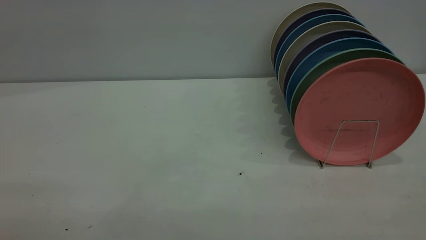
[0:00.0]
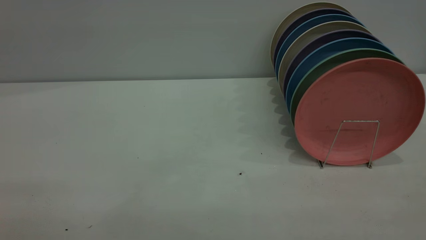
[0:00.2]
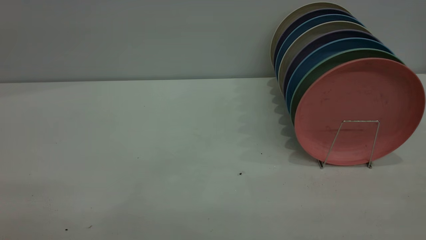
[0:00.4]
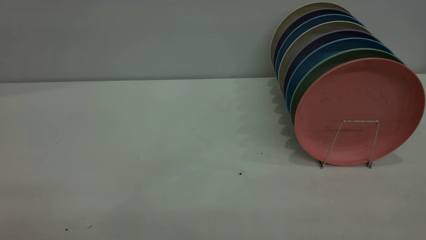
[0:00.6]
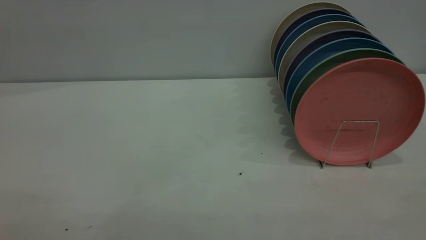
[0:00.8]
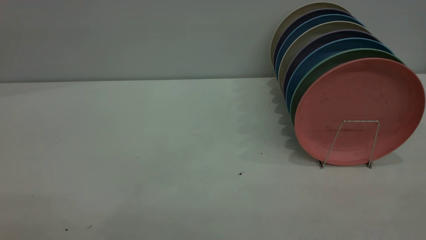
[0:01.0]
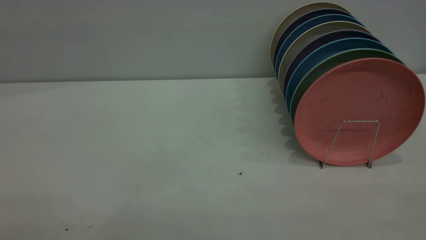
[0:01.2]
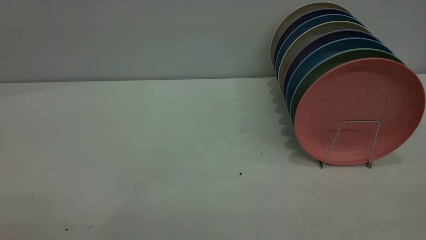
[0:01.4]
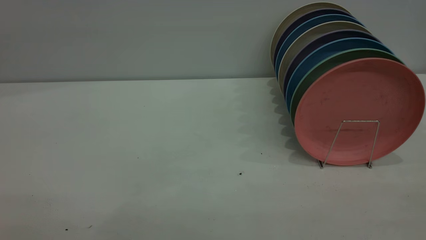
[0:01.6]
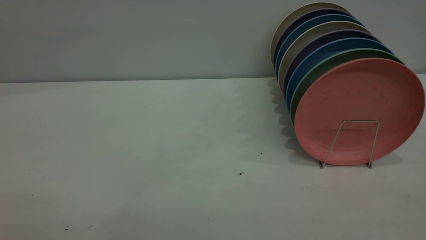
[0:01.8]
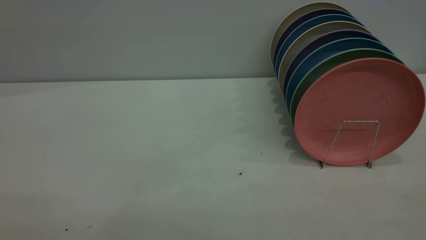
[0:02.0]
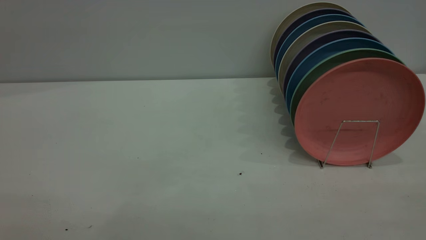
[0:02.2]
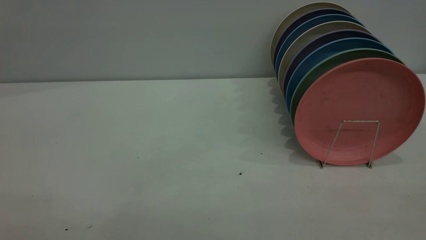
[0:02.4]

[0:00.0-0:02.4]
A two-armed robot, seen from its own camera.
Task of the whole recording: the left gripper grasp the pink plate, the left gripper pass the pink plate to the right gripper, and the right gripper place the pink plate on the plate rack.
1.2 to 2.4 s: Both grippers stay put.

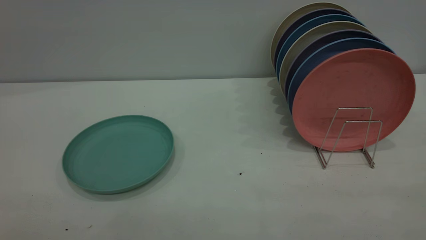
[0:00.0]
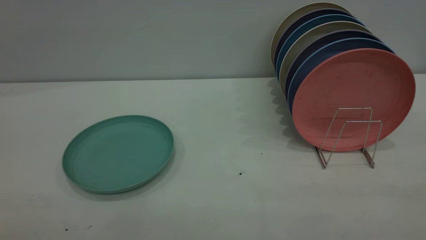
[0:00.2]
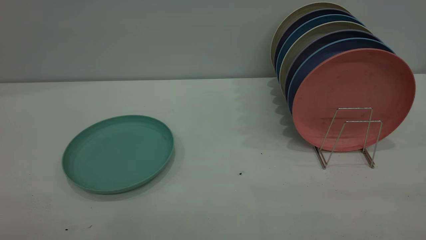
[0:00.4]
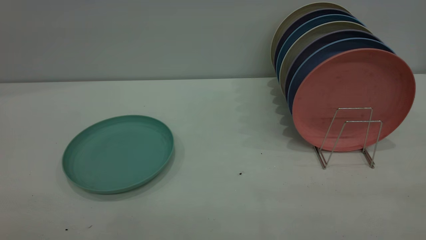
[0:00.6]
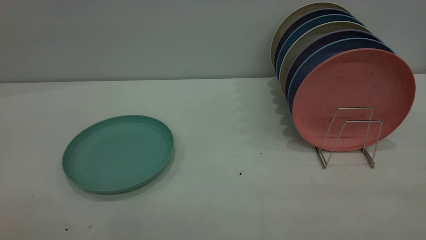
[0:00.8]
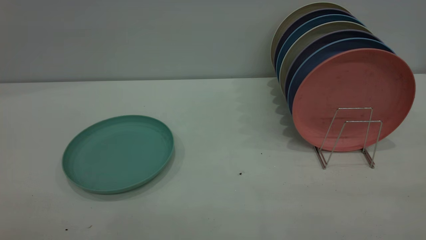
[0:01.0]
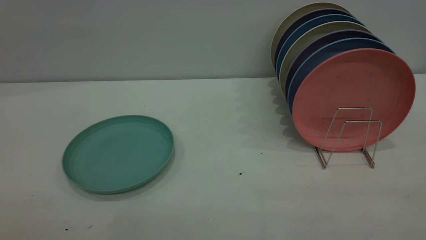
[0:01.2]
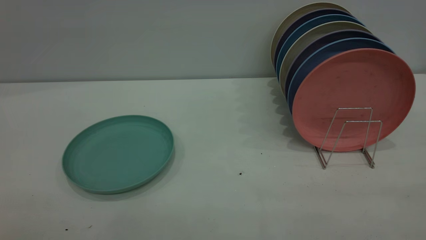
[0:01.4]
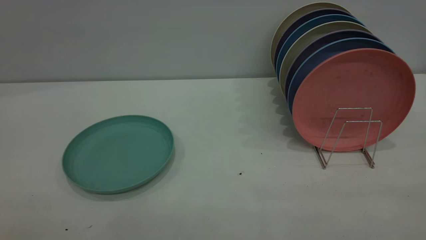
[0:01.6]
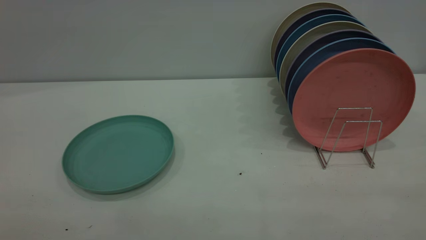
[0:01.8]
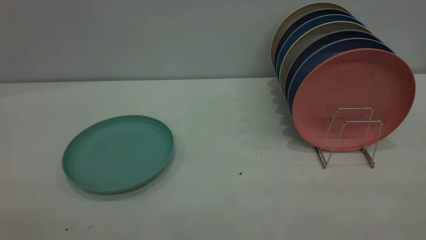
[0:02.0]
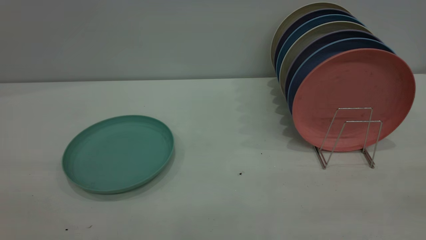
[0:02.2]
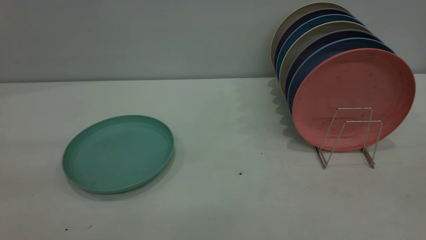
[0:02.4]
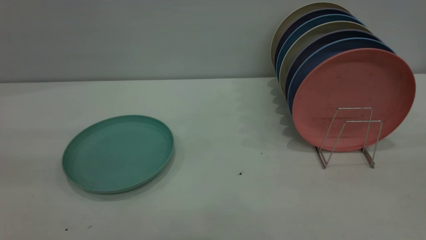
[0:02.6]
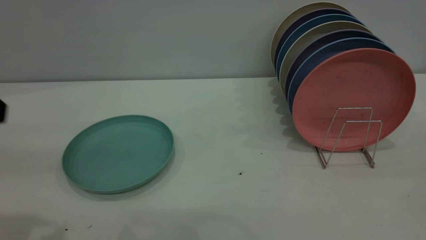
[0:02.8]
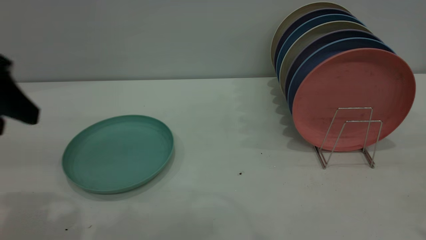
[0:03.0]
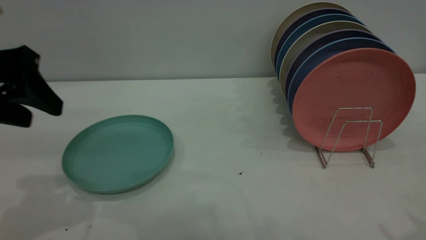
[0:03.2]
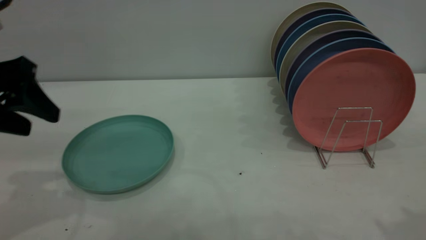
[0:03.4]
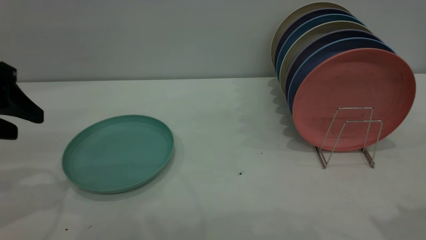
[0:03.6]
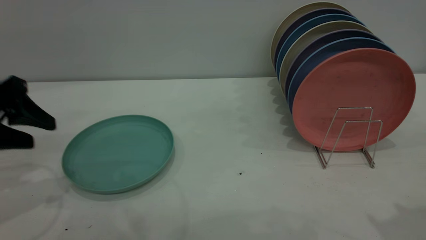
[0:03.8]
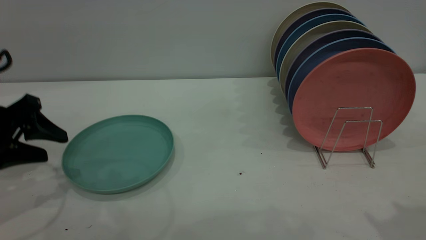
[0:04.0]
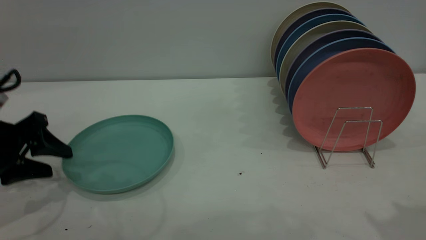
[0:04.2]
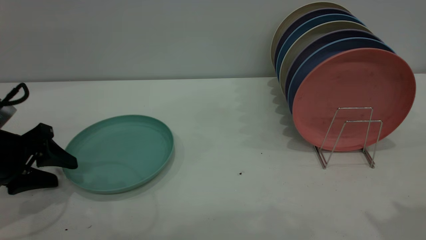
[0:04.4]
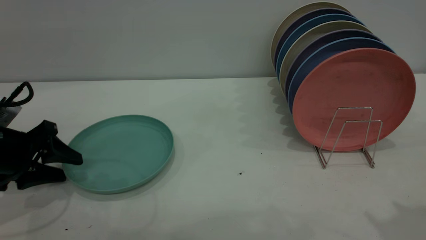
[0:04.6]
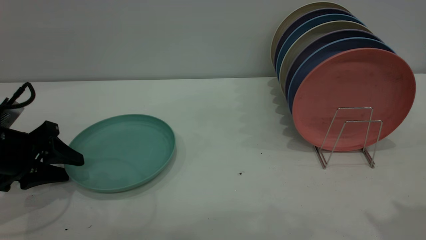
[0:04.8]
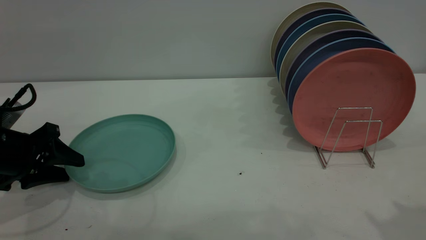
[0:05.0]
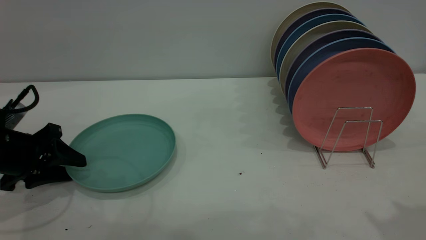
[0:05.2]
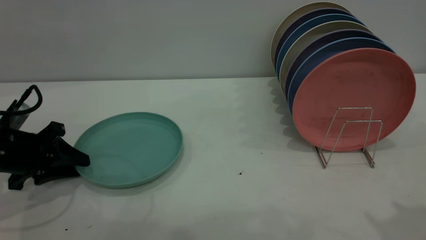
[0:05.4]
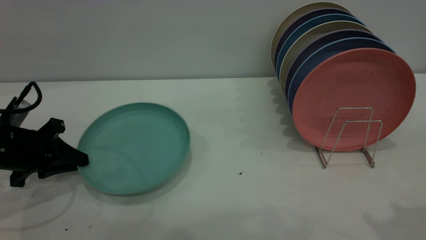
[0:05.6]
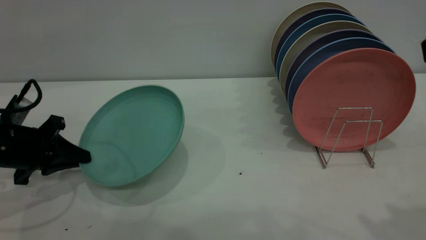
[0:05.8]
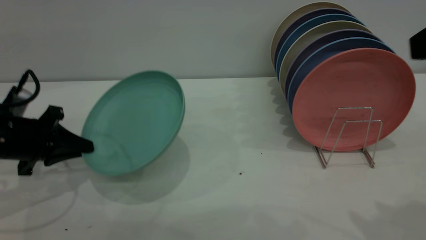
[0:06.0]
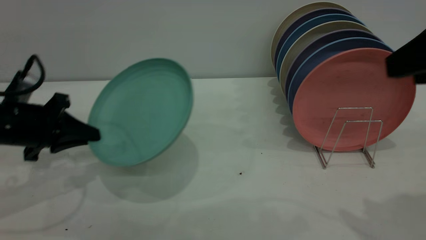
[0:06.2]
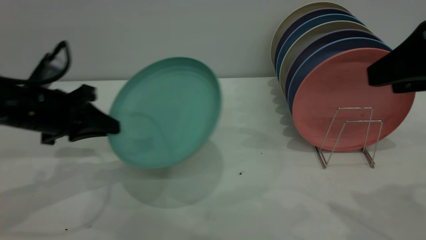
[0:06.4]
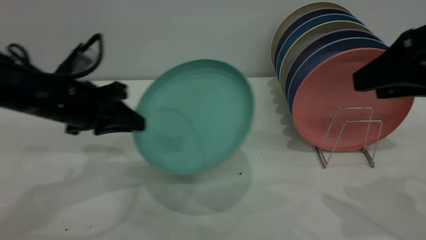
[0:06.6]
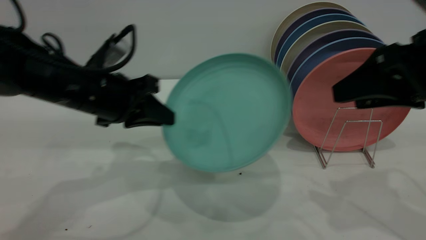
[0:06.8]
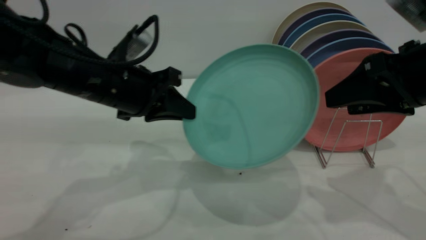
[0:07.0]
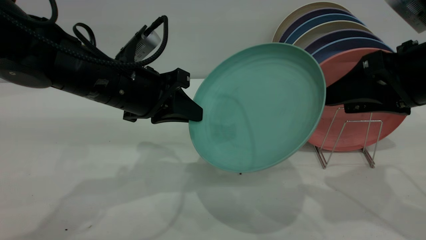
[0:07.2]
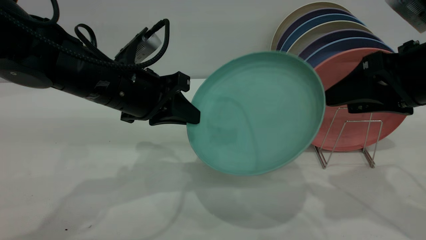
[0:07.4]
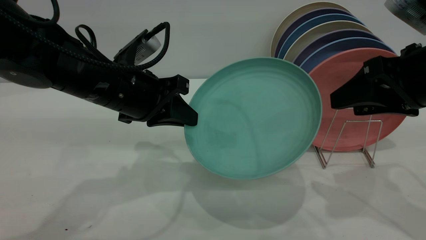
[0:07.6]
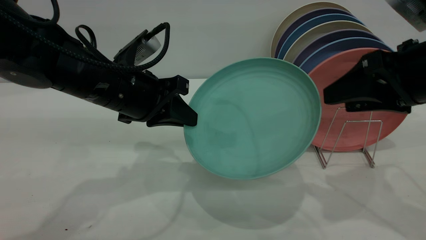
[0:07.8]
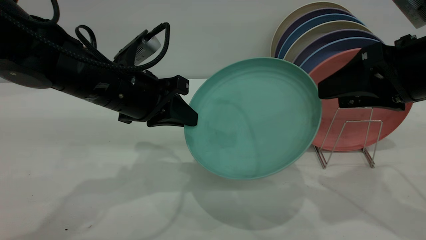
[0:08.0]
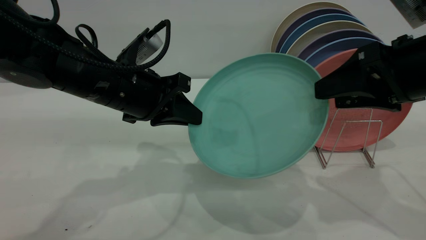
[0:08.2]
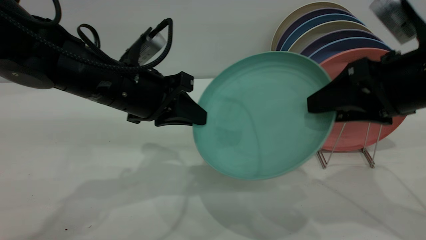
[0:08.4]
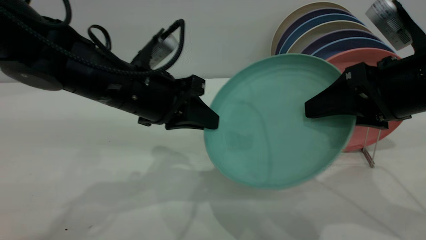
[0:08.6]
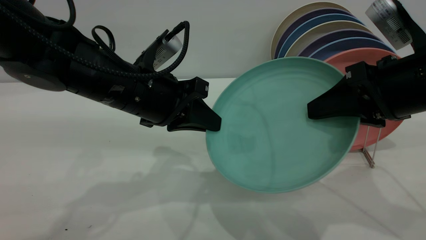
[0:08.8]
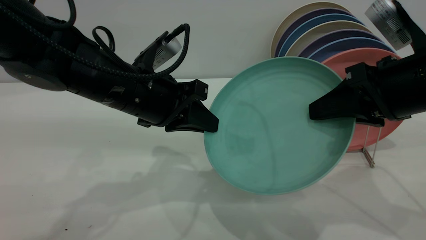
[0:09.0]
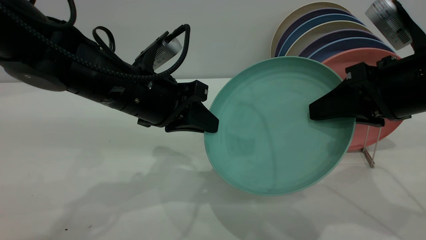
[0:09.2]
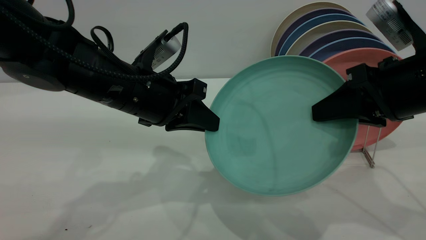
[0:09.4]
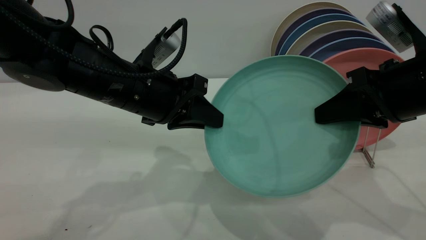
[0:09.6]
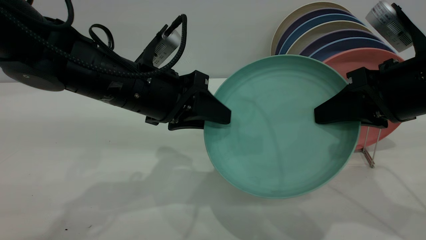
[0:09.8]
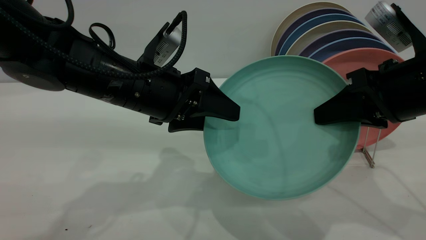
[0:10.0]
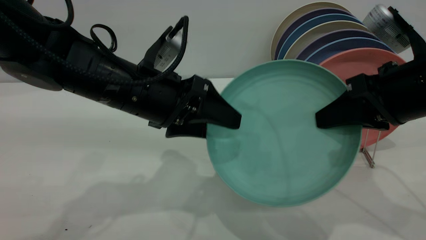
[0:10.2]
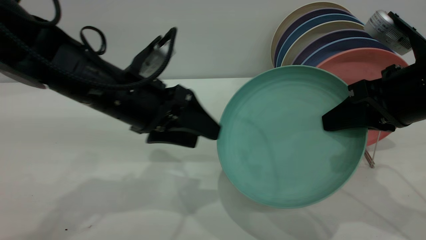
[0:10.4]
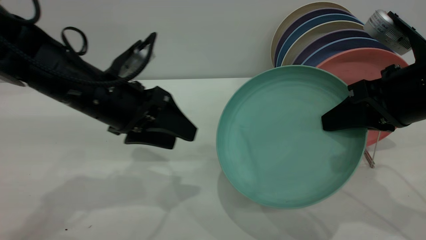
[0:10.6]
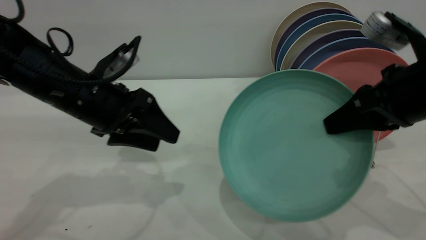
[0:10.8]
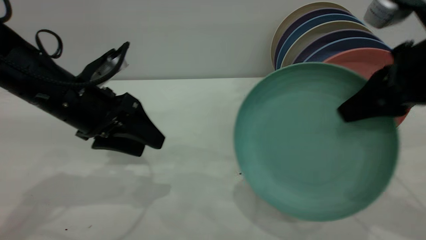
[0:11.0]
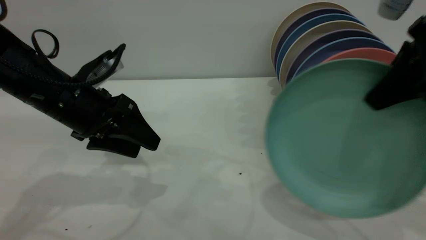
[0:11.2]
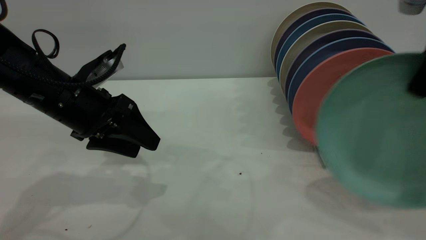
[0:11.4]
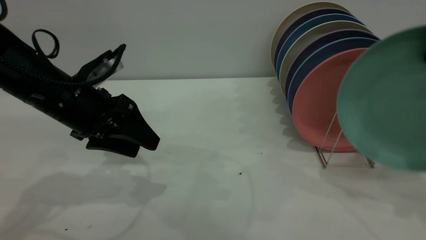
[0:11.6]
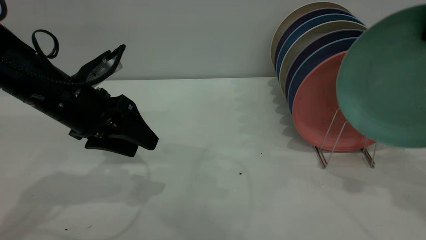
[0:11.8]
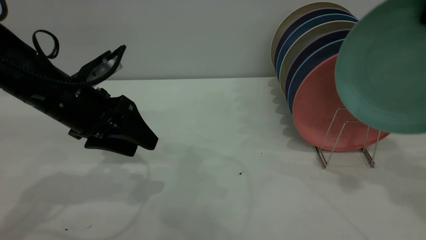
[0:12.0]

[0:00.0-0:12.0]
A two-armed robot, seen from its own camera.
Task of the whole recording: the left gripper grasp the green plate, the left gripper pass the green plate to the right gripper, and the right gripper place the green plate on the plate rack.
Step, 0.0 to 5.8 s: Pick up the plate with the left gripper.
Step, 6.2 to 10.4 s: Pass the plate from the left gripper to the right gripper.
0.0 to 1.6 s: Both grippers stay put.
1.6 to 3.0 s: The left gripper is displaced forward by some 25 cm.
3.0 to 4.4 s: The left gripper shifts roughly 15 cm downward.
4.4 to 6.0 s: The left gripper closes up.
6.0 to 7.6 s: The left gripper is displaced to the right by some 15 cm, while the right gripper travels downward and forward by roughly 10 cm.
7.6 to 9.0 s: The right gripper closes its fingers.
9.0 to 10.4 s: The left gripper opens its fingers.
10.4 to 12.0 s: The left gripper heads to the left, covering about 5 cm. The right gripper moves upward, some 15 cm.

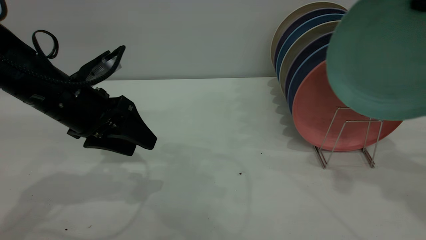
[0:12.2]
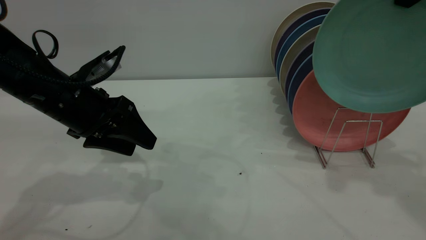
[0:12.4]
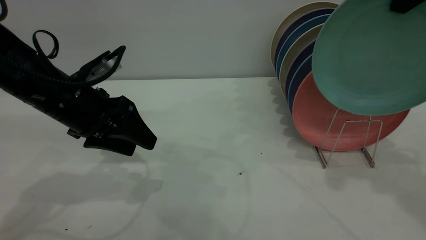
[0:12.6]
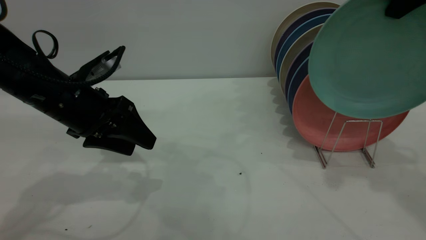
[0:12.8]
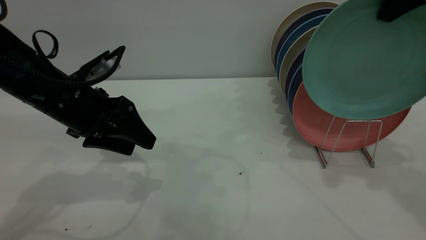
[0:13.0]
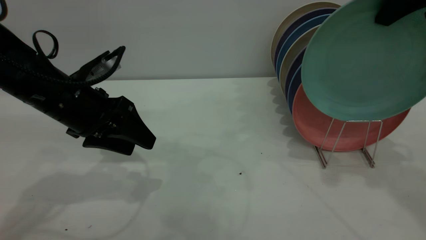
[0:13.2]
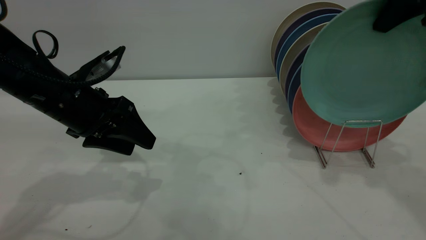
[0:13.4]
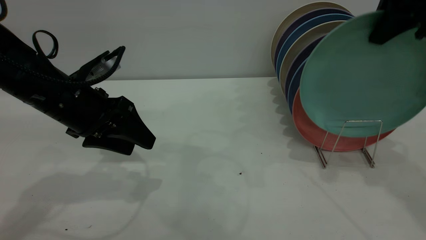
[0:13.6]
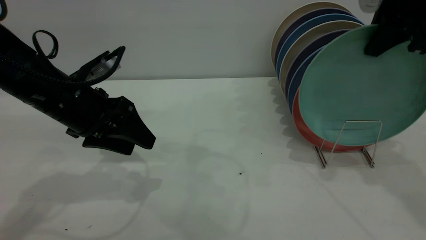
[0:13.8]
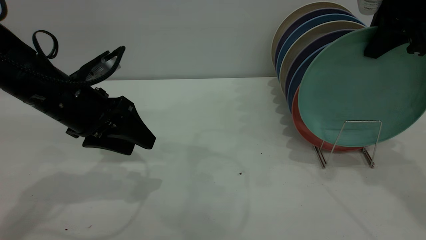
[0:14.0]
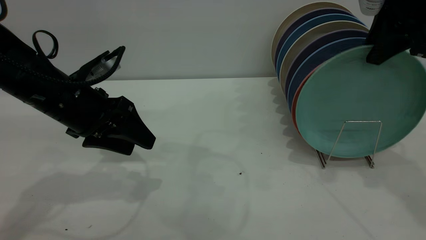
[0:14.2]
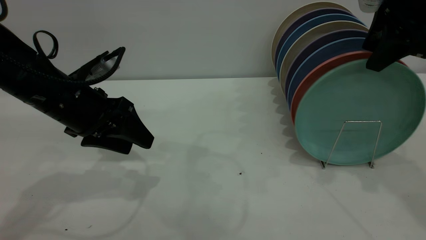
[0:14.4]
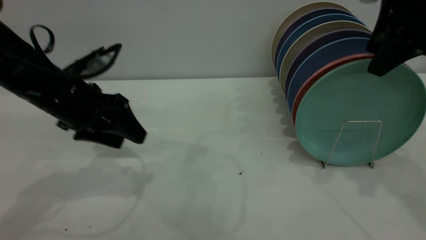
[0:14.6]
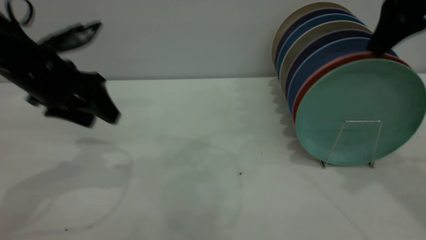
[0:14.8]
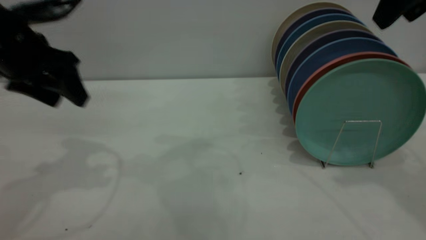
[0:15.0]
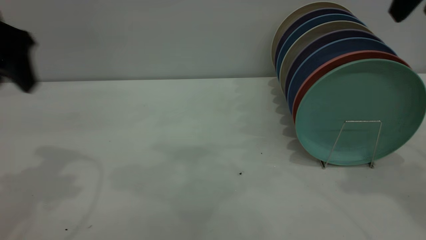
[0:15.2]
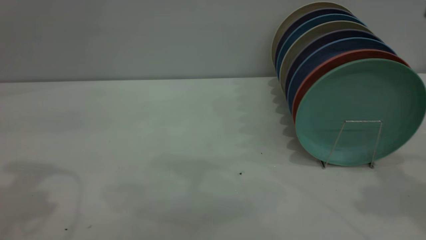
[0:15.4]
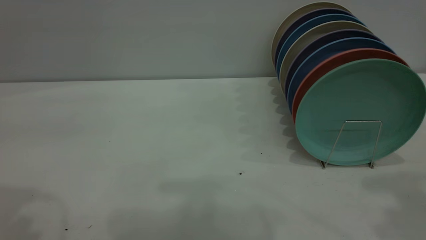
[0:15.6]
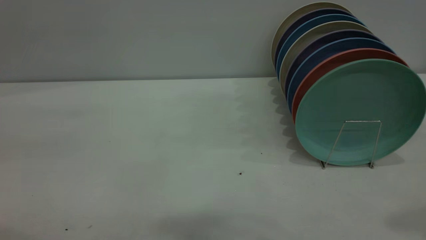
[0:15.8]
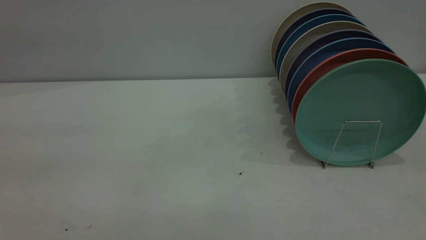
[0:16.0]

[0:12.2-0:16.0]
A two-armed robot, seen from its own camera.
Task of the whole recording: the left gripper grasp the green plate, the left gripper pass the green plate to the right gripper, and the right gripper place the green plate on the plate rack.
Step, 12.2 to 14.8 s: Place the plate on the shelf.
12.2 to 13.4 s: The right gripper moves about 5 cm.
13.4 to 14.8 s: The left gripper goes approximately 5 cm upward. The right gripper opens.
14.8 to 16.0 s: The right gripper travels backward by some 25 cm, while the left gripper goes about 30 cm backward and upward.
